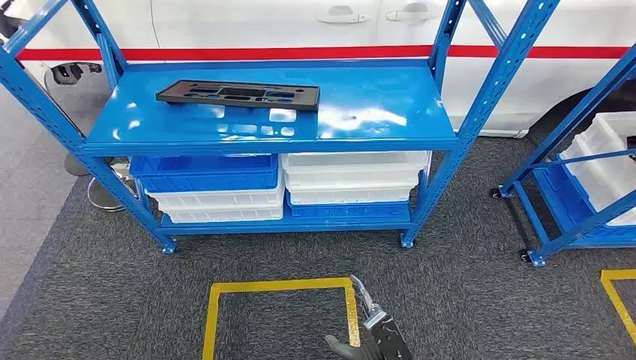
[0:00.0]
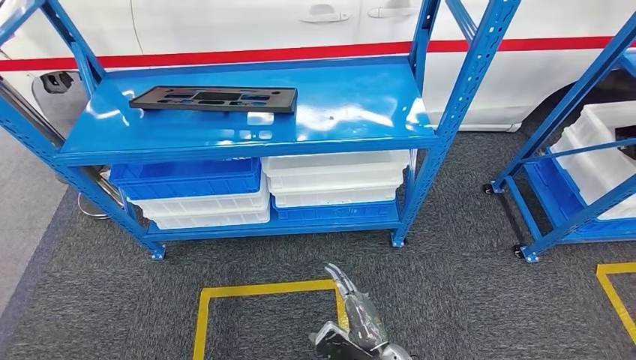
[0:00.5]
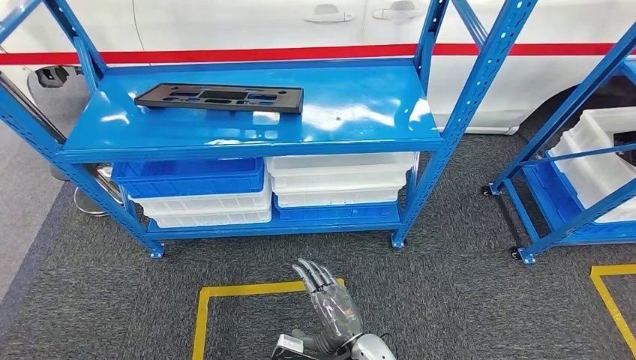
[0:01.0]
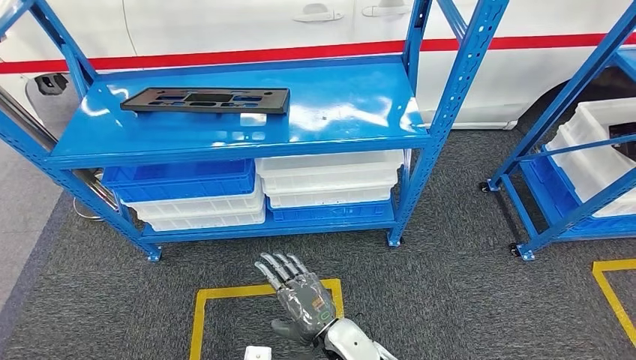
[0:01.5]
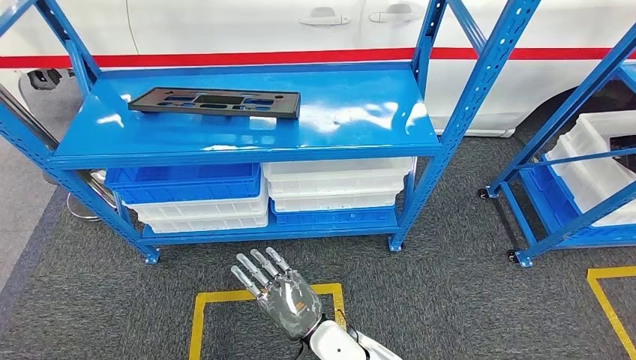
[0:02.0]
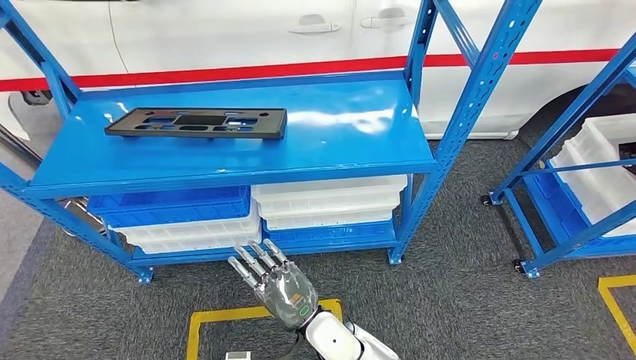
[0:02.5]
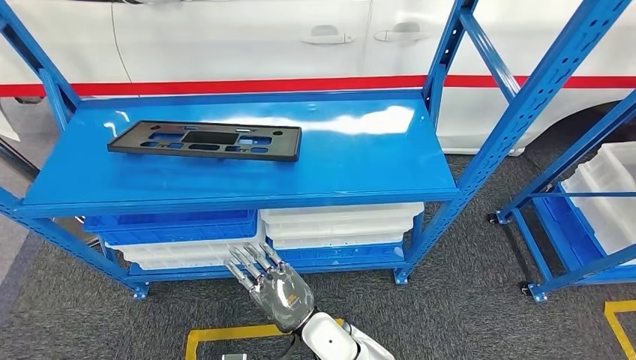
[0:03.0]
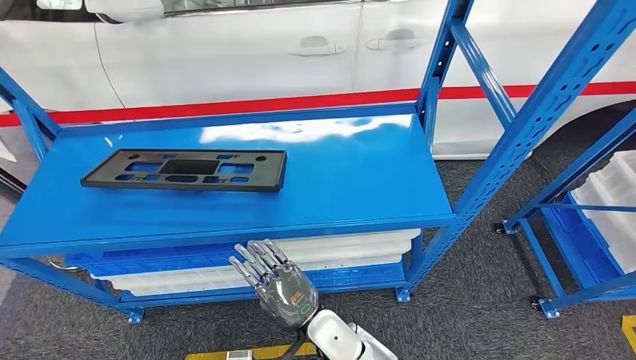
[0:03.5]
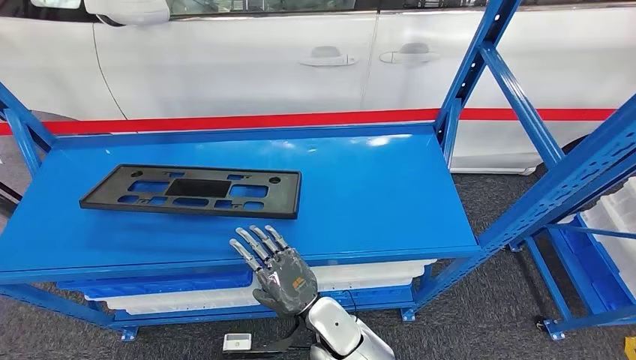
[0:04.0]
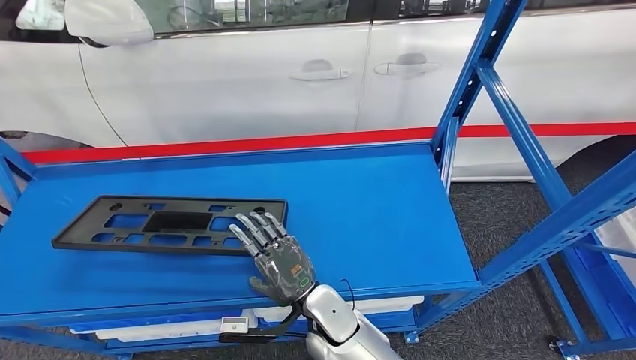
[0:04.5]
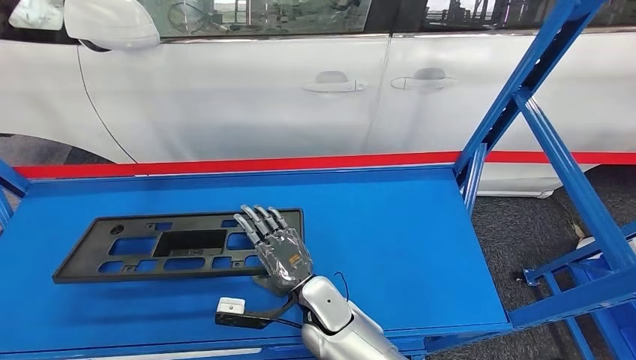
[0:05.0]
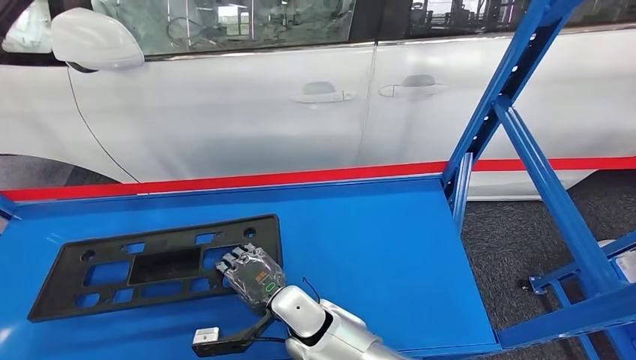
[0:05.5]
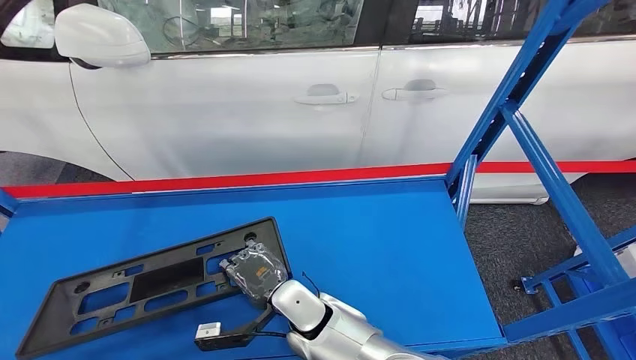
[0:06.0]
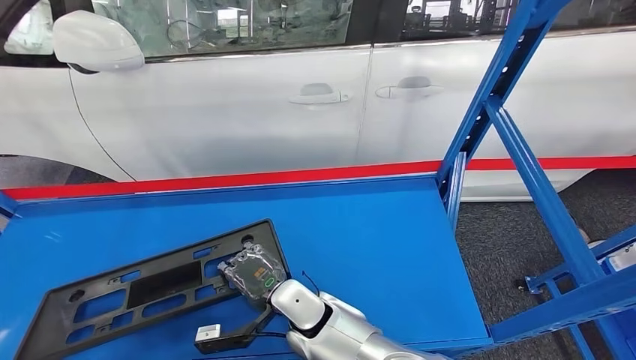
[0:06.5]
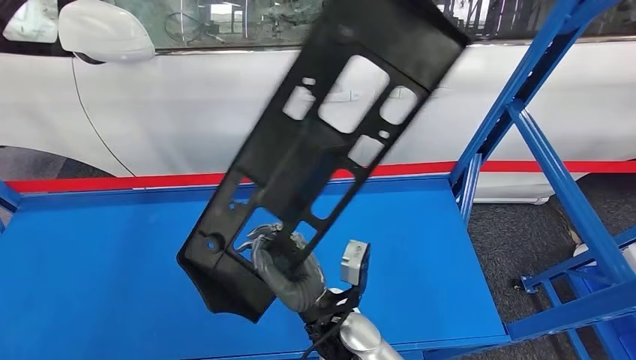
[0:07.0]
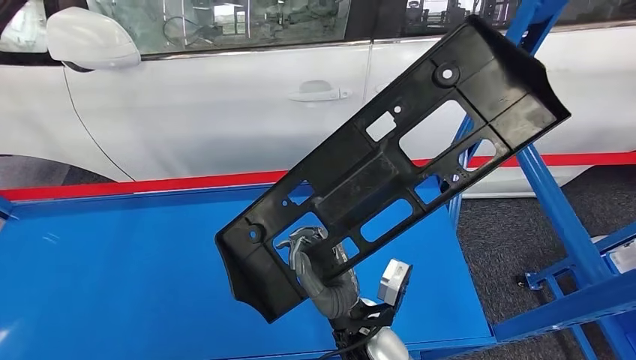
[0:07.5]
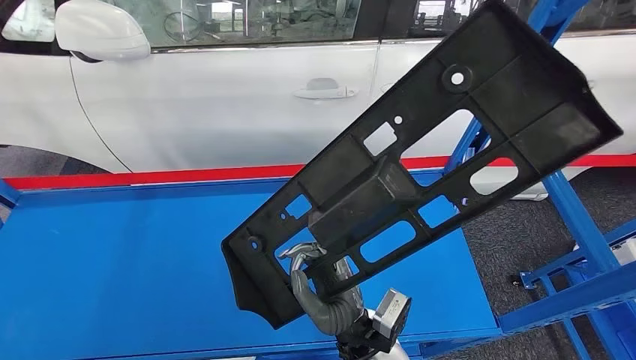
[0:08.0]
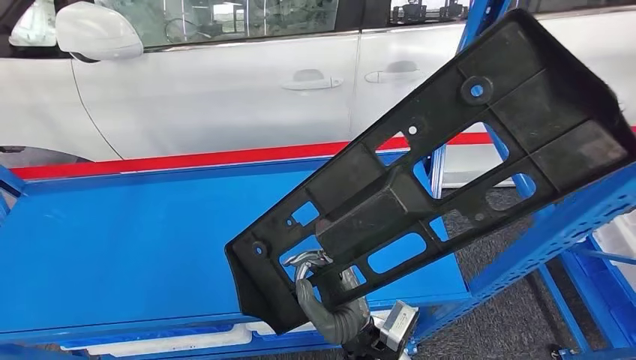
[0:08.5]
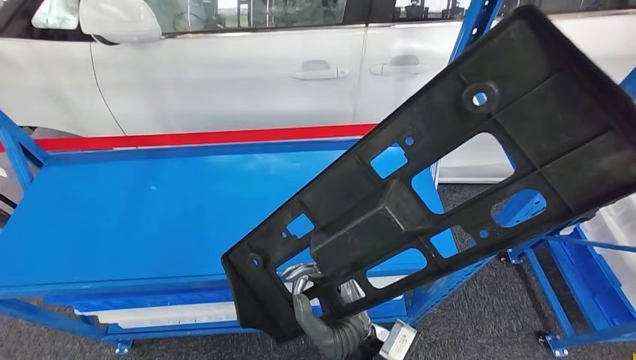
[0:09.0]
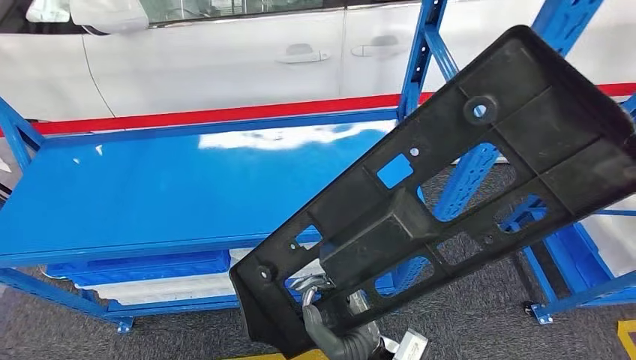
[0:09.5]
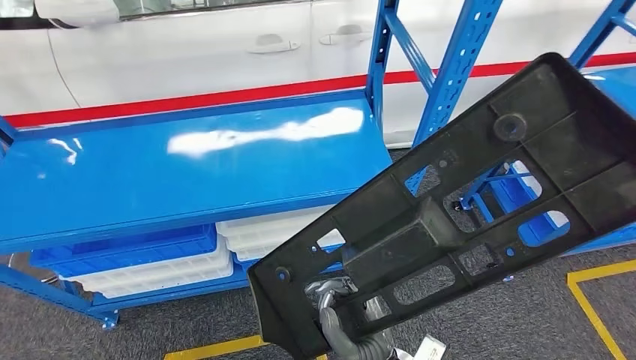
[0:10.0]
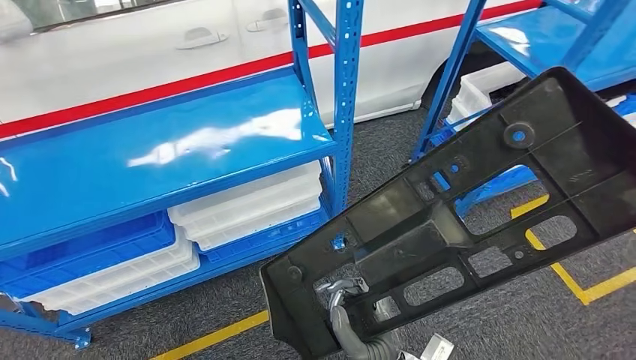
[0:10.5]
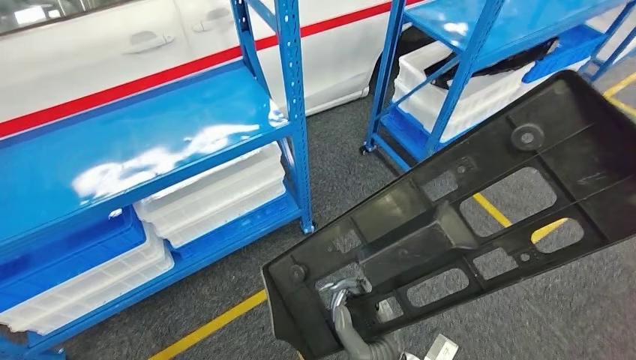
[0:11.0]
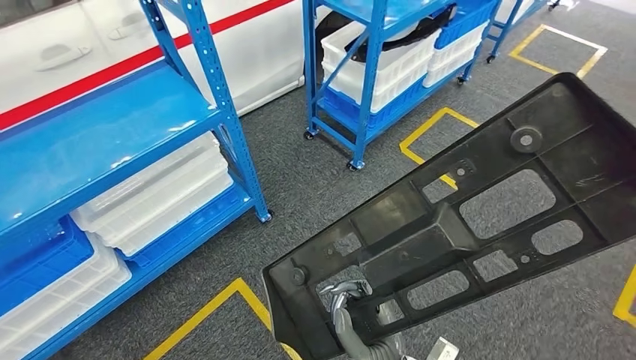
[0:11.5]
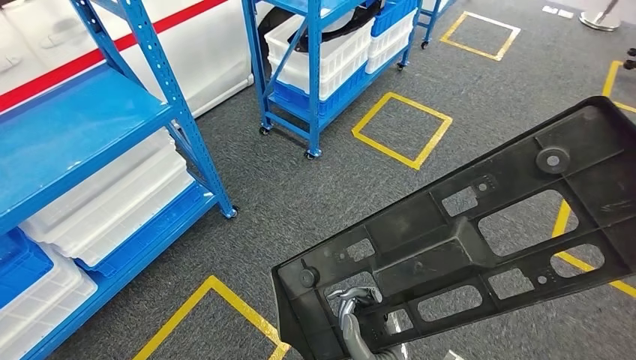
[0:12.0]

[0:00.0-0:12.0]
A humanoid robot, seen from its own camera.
Step, 0:00.0 to 0:10.0: Pick up the large material from the shelf.

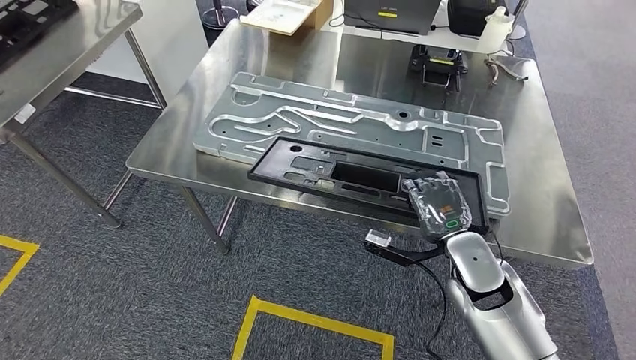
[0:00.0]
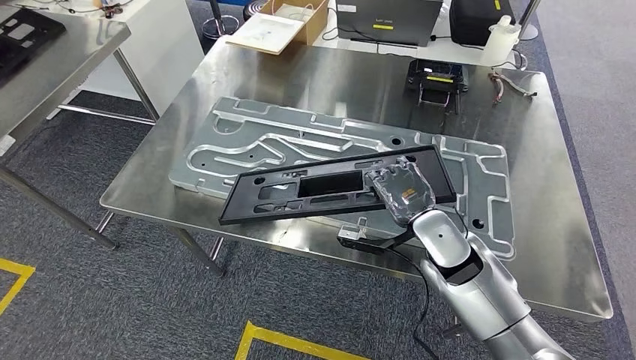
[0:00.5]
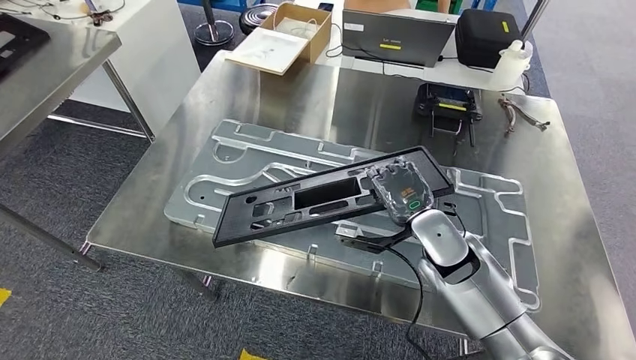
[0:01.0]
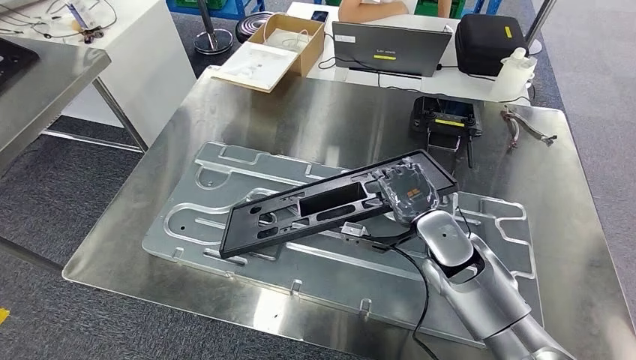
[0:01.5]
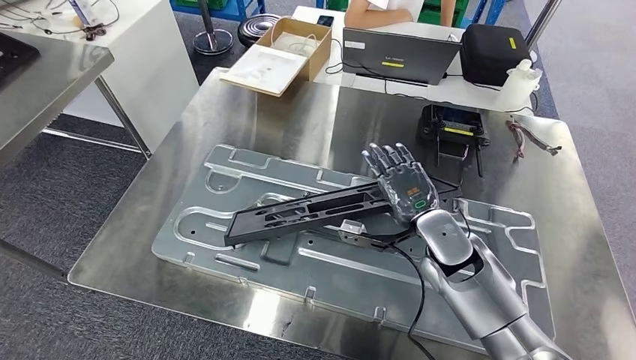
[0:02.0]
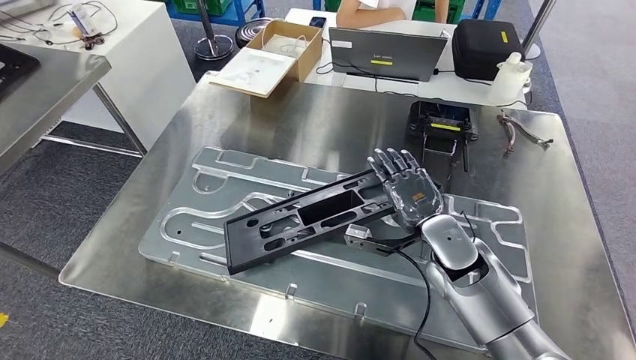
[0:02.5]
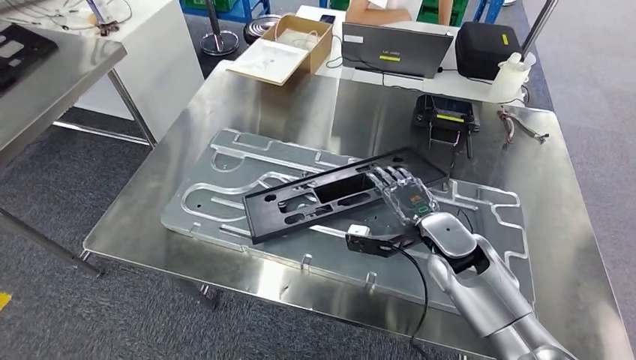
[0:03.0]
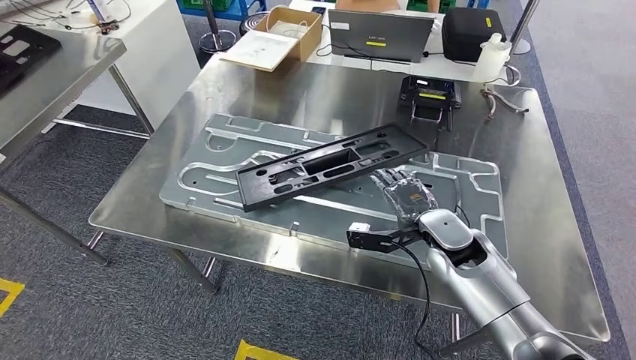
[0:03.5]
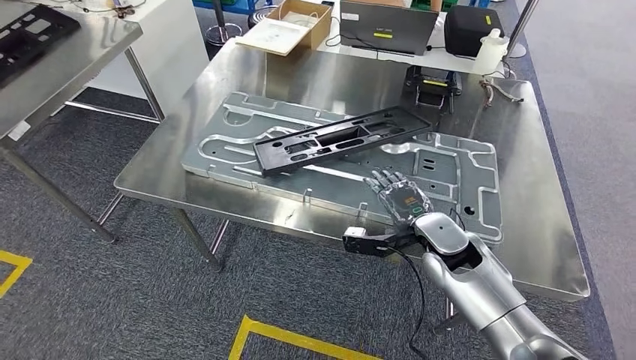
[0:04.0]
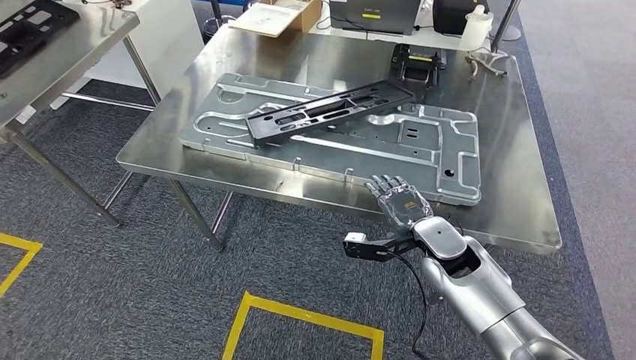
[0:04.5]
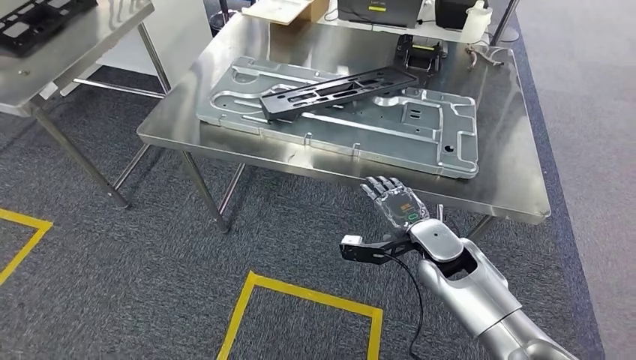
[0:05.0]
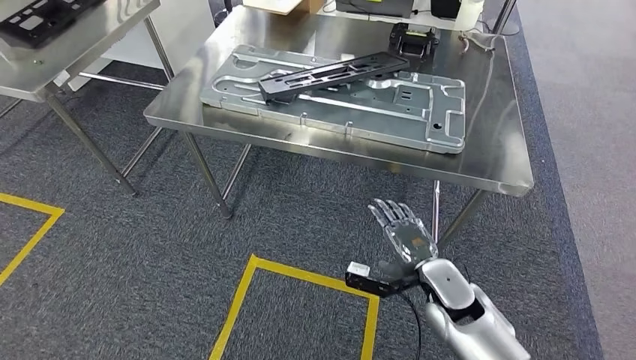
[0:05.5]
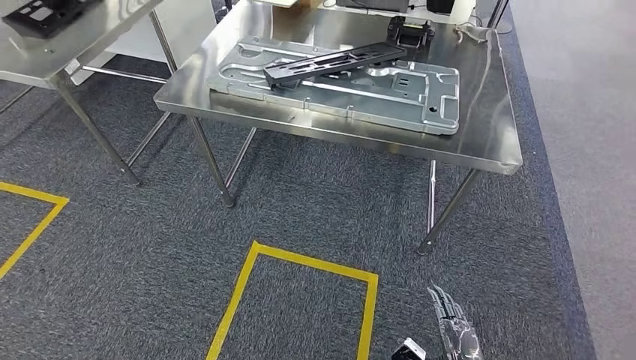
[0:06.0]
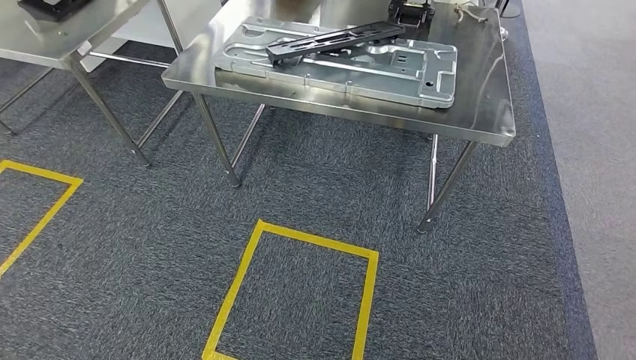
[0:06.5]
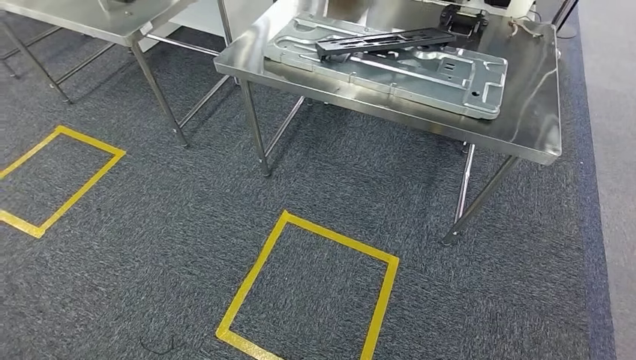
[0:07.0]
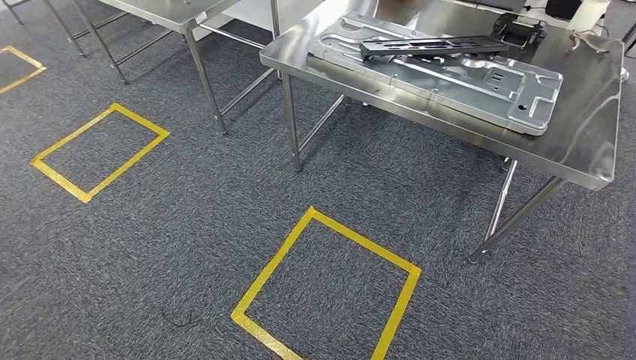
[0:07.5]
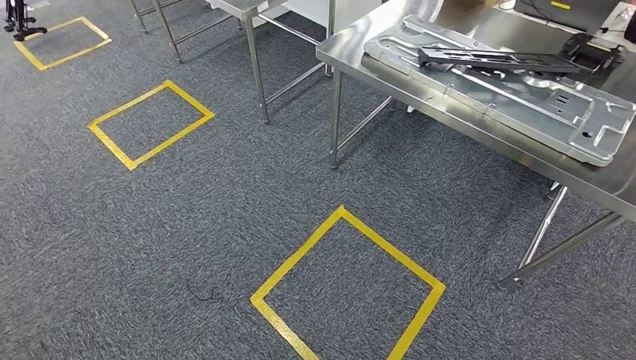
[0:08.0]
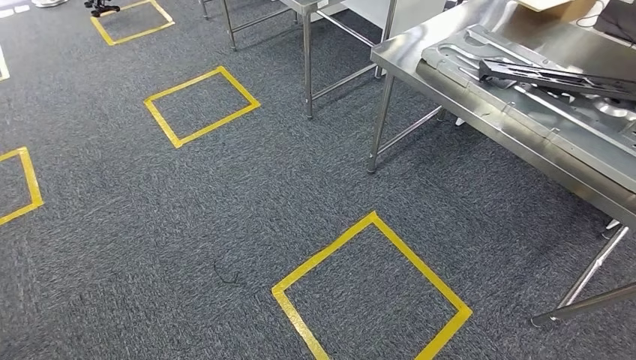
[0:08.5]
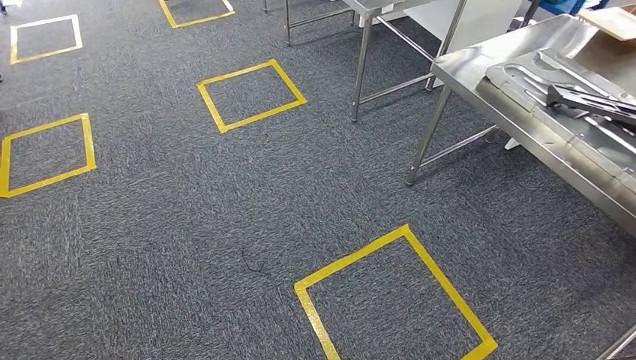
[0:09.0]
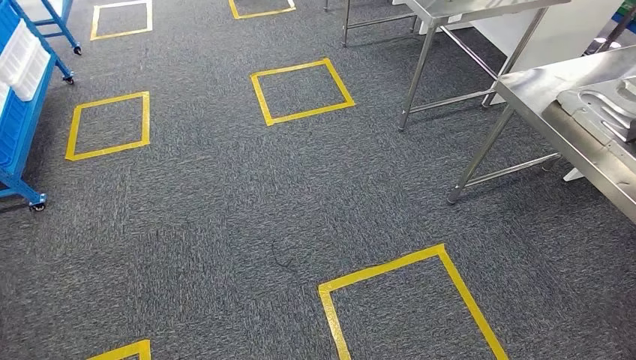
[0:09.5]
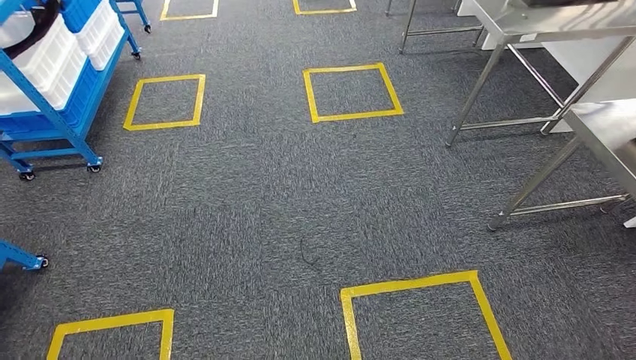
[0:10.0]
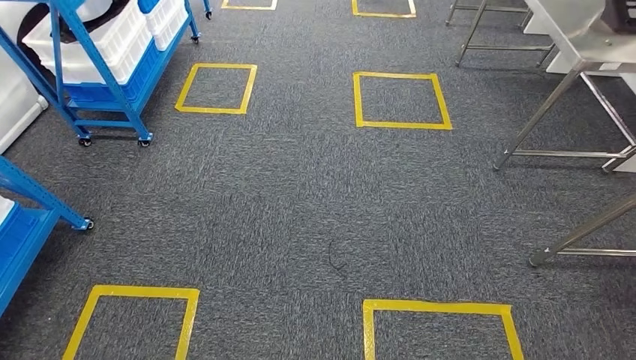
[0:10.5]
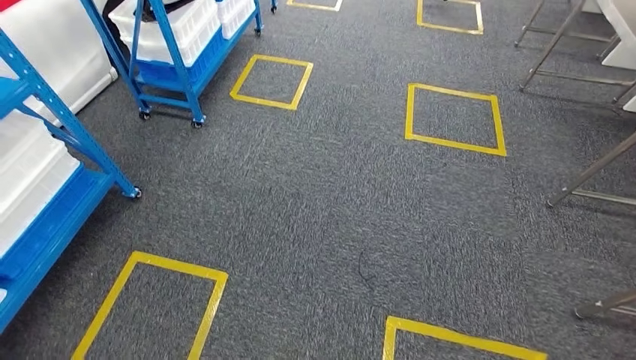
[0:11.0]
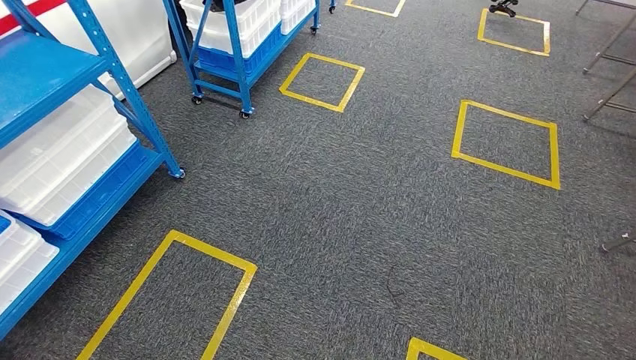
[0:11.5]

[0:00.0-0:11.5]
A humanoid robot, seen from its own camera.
Step, 0:00.5 to 0:04.0: Insert the large material into the corresponding slot on the workbench.
